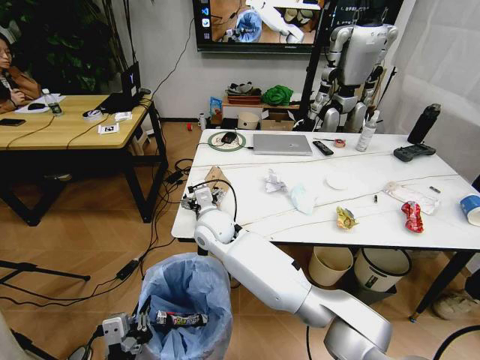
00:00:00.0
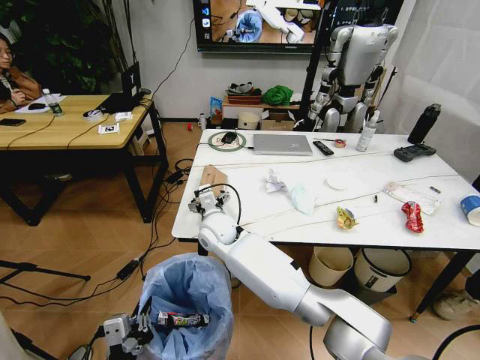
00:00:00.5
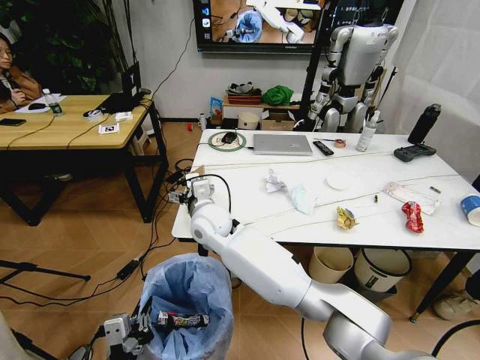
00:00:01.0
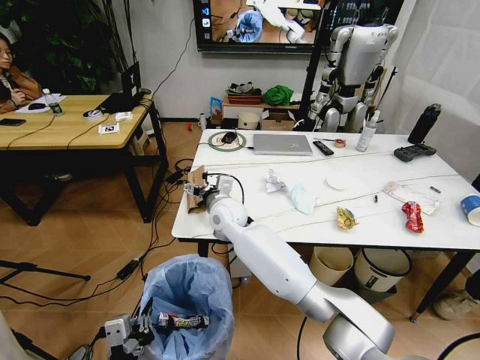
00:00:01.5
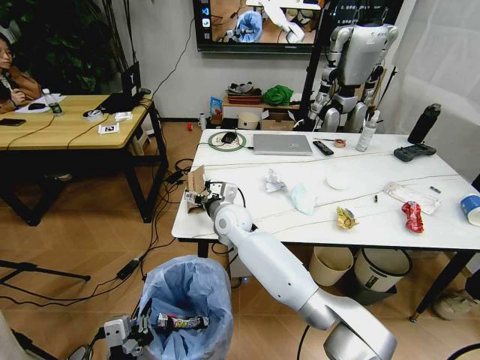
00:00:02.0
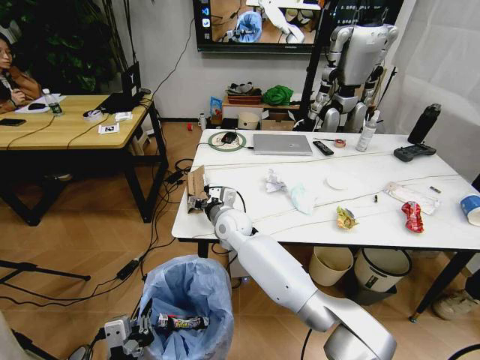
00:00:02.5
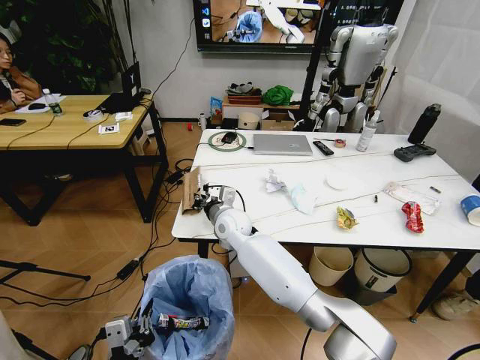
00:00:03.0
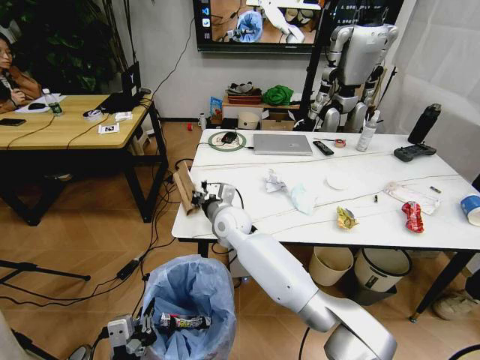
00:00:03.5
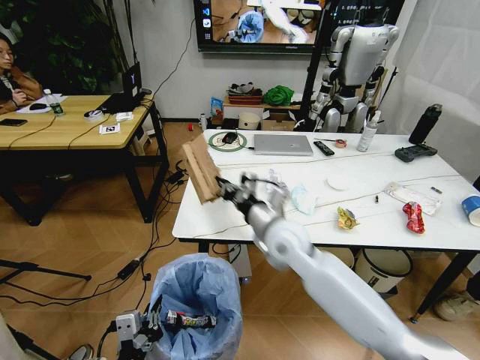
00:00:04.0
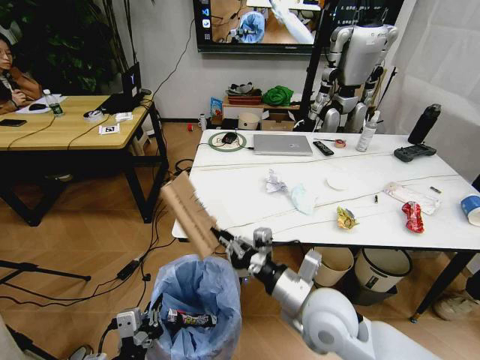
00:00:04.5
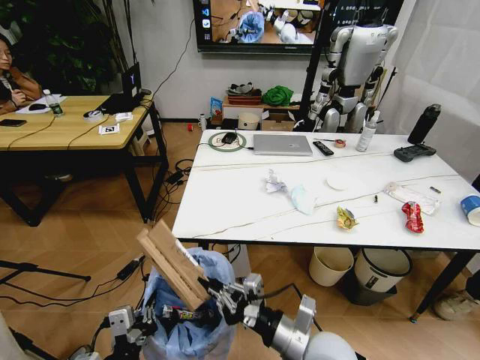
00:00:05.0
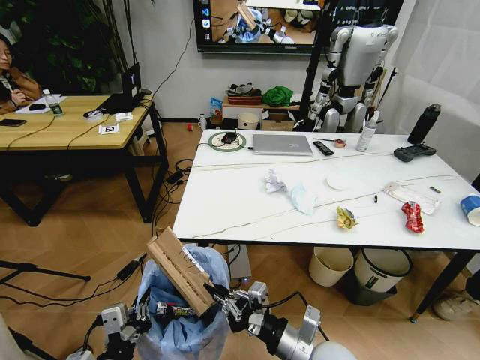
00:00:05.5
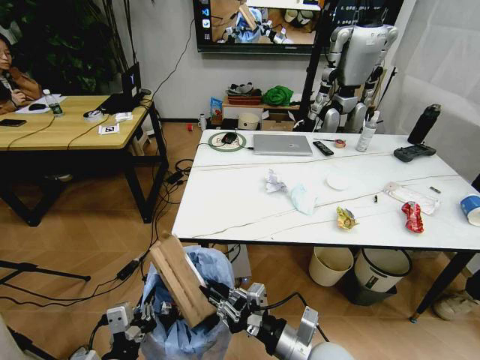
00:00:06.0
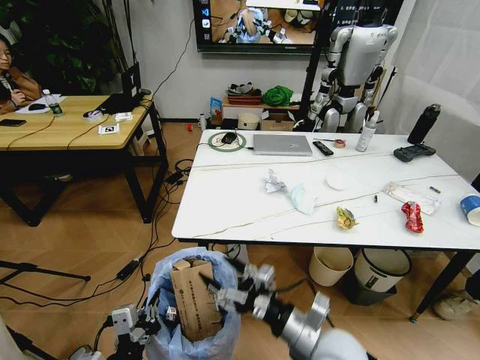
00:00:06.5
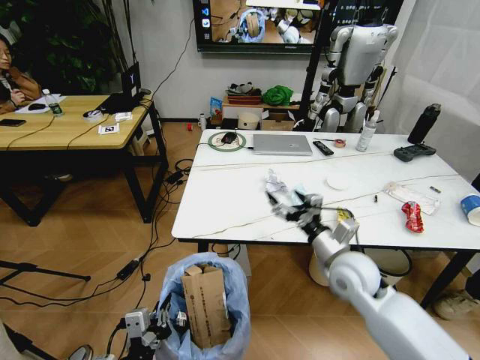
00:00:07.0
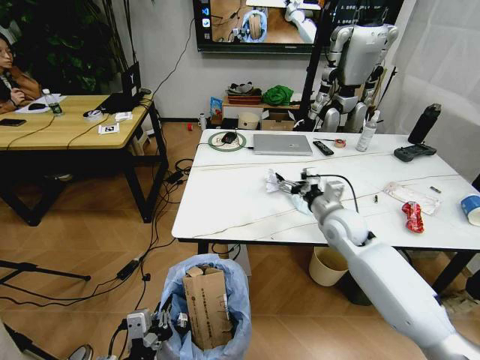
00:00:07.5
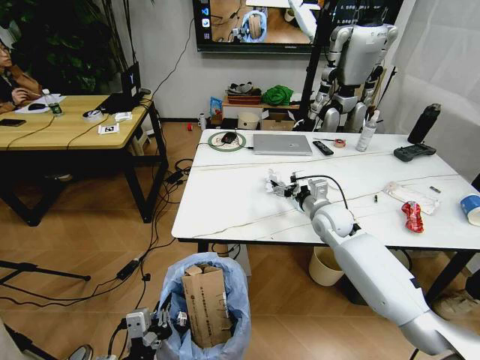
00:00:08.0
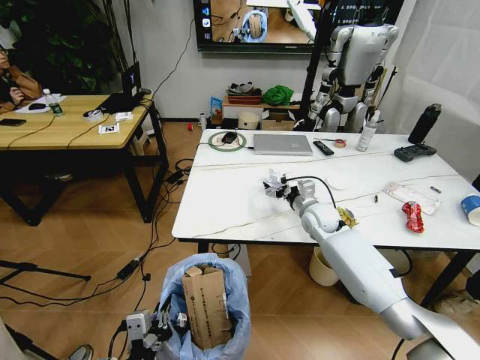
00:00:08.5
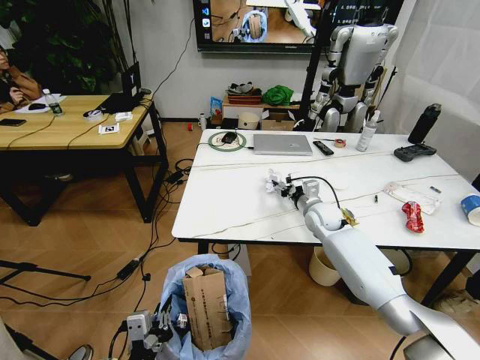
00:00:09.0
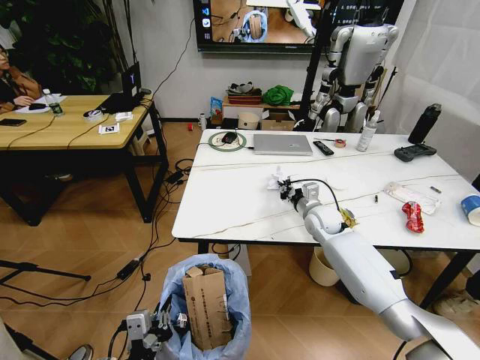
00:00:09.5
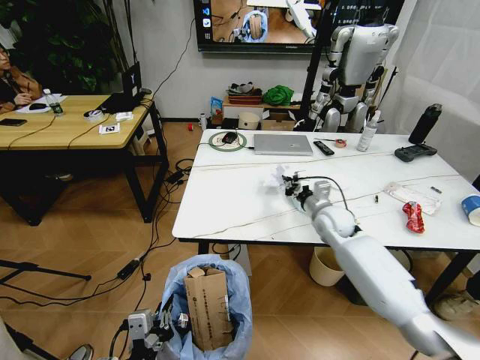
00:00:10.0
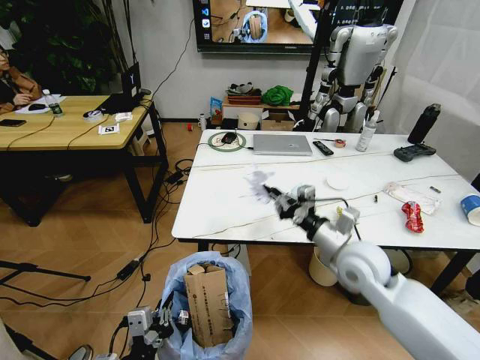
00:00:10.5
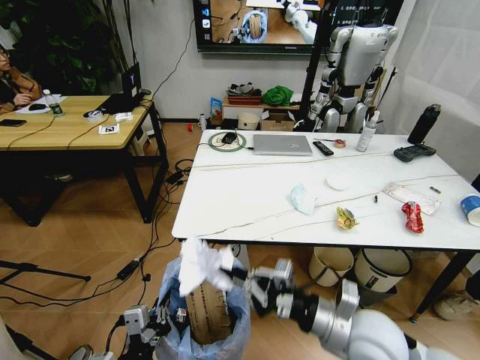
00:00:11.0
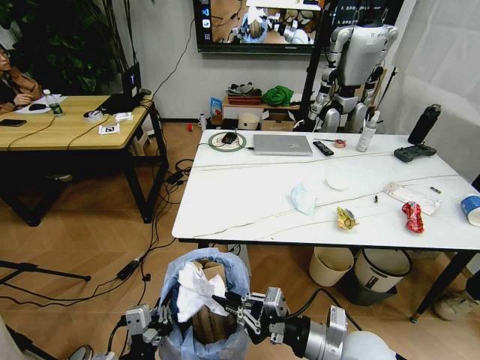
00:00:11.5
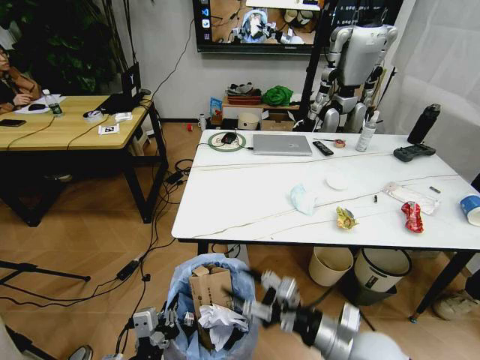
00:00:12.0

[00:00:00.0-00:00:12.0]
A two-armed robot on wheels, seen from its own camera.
Task of the whole recording: Pick up the trash bin and place the trash from the table into it.
00:00:00.0 to 00:00:02.0: The right gripper shifts by about 5 cm.
00:00:02.0 to 00:00:04.0: The right gripper shifts roughly 15 cm to the right, backward and upward, and closes up.
00:00:04.0 to 00:00:06.0: The right gripper heads backward and downward, covering about 25 cm.
00:00:06.0 to 00:00:08.0: The right gripper travels forward by about 30 cm, and opens its fingers.
00:00:08.0 to 00:00:10.0: The right gripper closes its fingers.
00:00:10.0 to 00:00:12.0: The right gripper travels backward by approximately 35 cm, and opens.

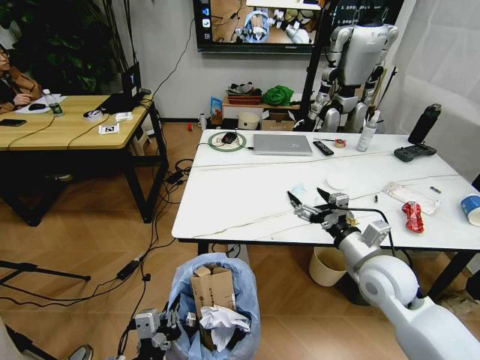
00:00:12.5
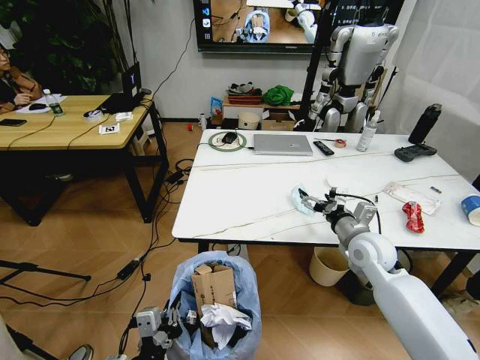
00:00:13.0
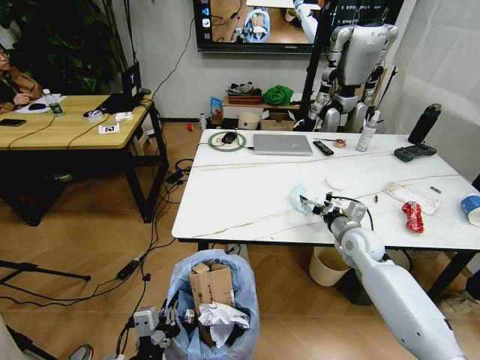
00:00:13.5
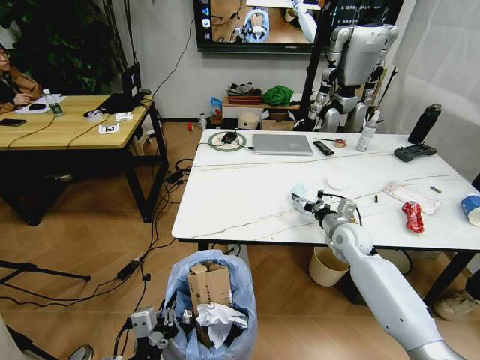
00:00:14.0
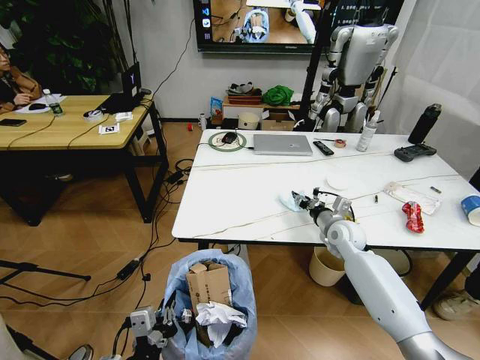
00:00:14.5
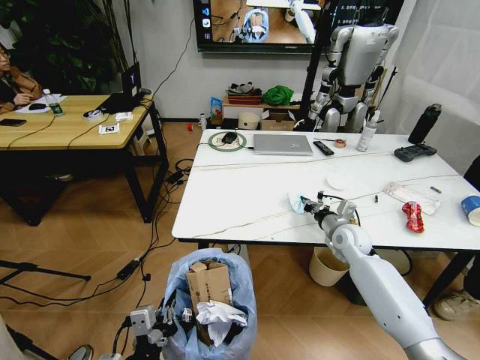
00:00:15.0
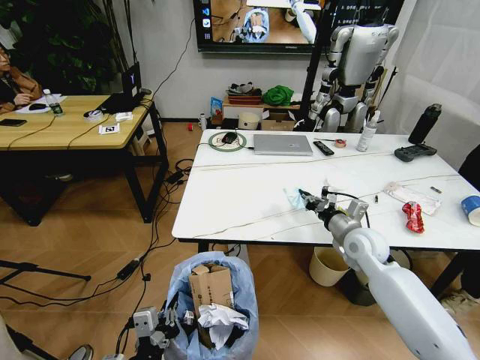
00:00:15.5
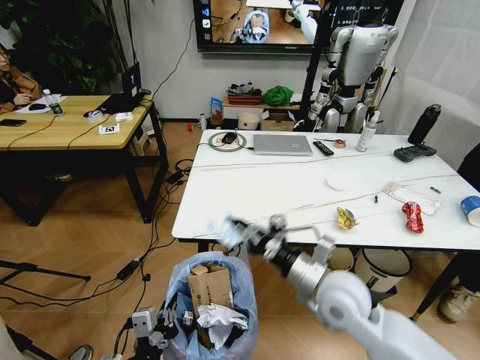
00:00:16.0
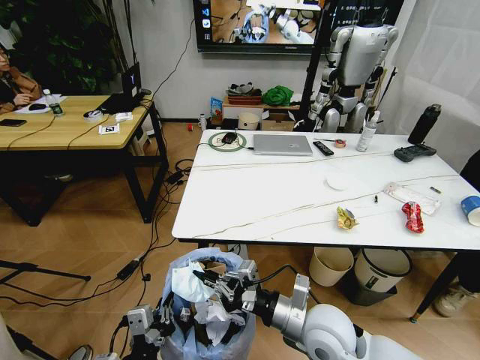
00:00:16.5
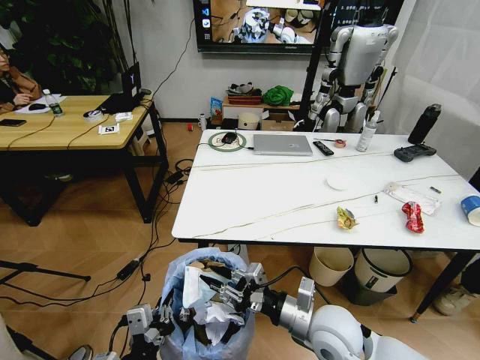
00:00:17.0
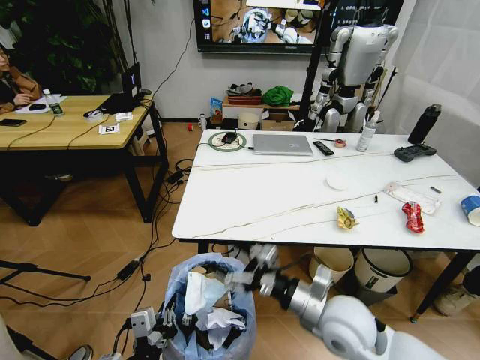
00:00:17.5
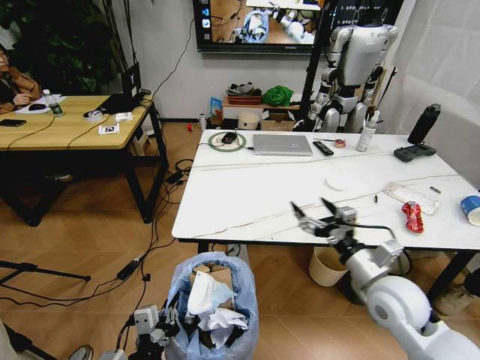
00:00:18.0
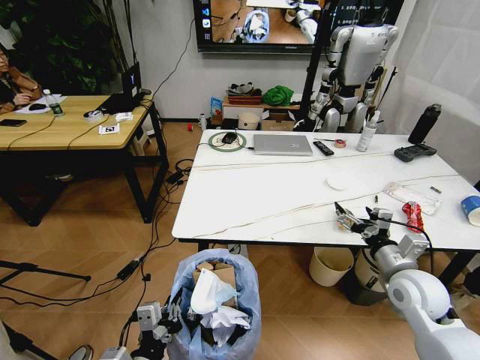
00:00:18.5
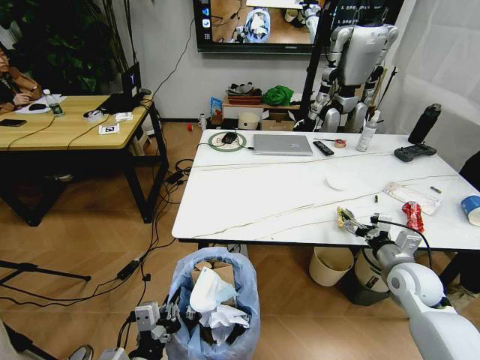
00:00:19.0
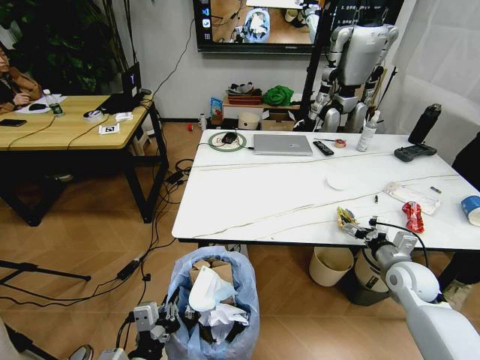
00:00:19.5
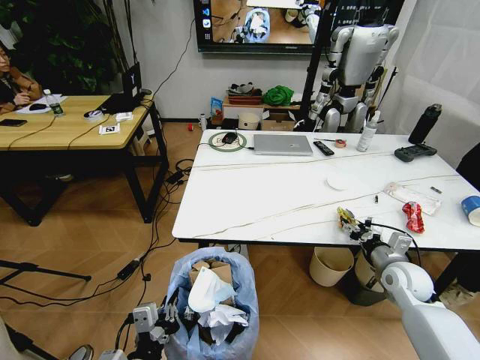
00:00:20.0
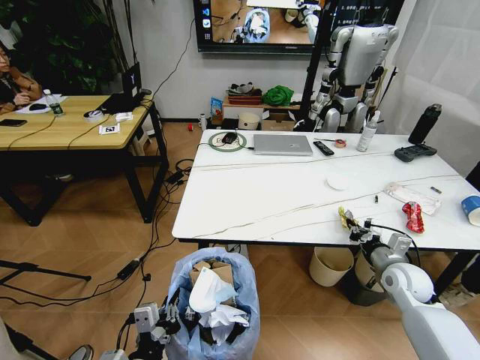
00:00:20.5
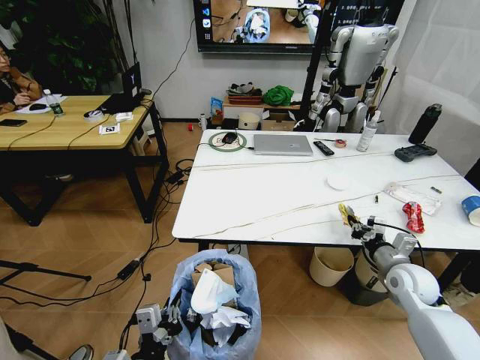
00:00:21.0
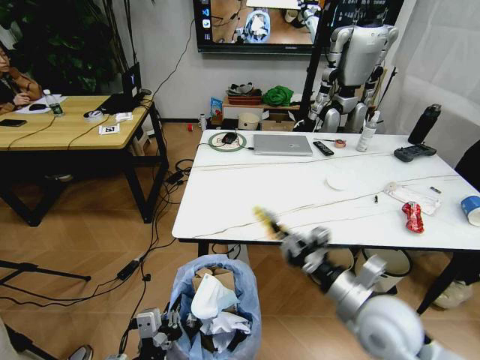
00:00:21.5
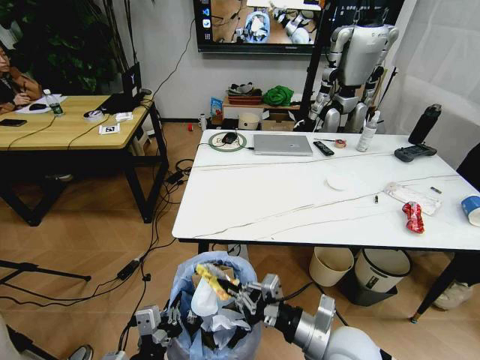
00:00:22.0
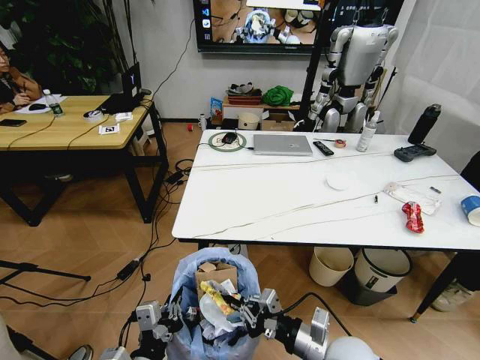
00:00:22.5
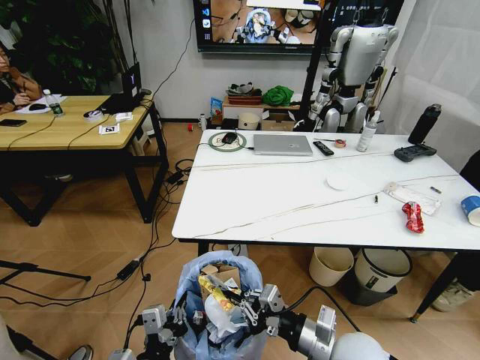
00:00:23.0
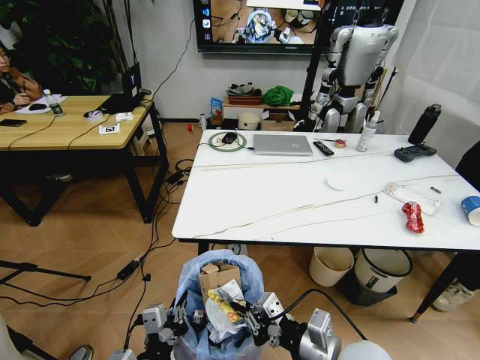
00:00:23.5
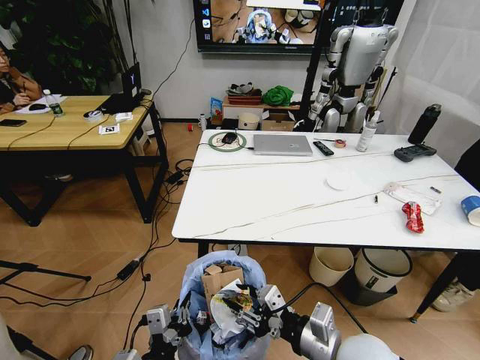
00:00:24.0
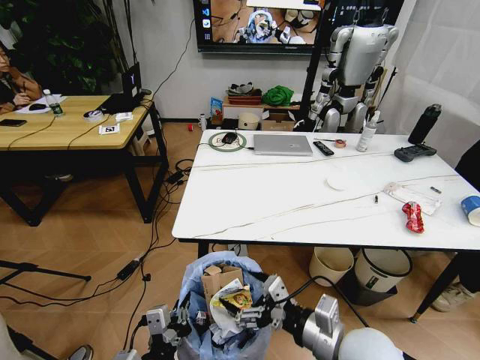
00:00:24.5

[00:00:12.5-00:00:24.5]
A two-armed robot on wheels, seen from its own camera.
Task of the whole recording: Pick up the trash bin and place the trash from the table into it.
00:00:12.5 to 00:00:14.5: The right gripper heads forward and downward, covering approximately 15 cm, and closes its fingers.
00:00:14.5 to 00:00:16.5: The right gripper is displaced backward and to the left by approximately 30 cm, and closes up.
00:00:16.5 to 00:00:18.5: The right gripper travels to the right by roughly 20 cm, and opens up.
00:00:18.5 to 00:00:20.5: The right gripper shifts about 10 cm downward and forward, and closes up.
00:00:20.5 to 00:00:22.5: The right gripper travels to the left and backward by roughly 25 cm.
00:00:22.5 to 00:00:24.5: The right gripper heads upward, covering approximately 10 cm, and opens.

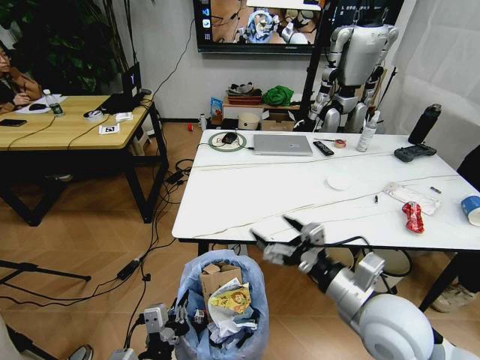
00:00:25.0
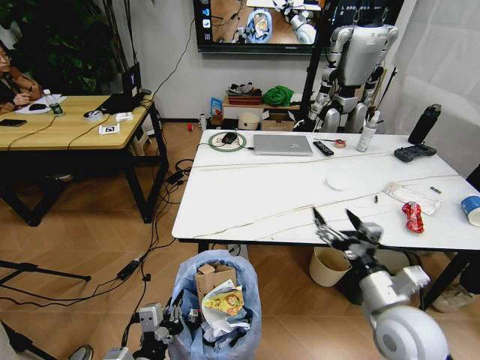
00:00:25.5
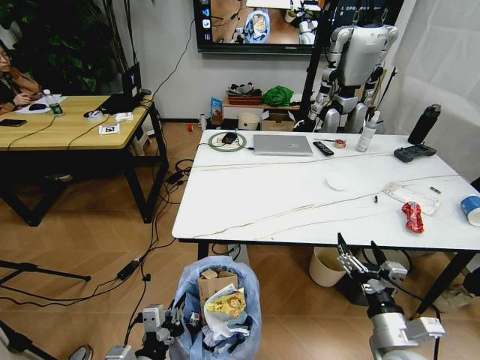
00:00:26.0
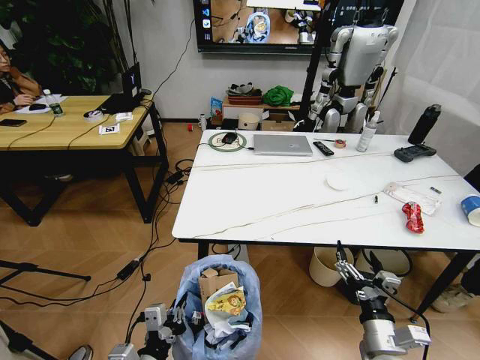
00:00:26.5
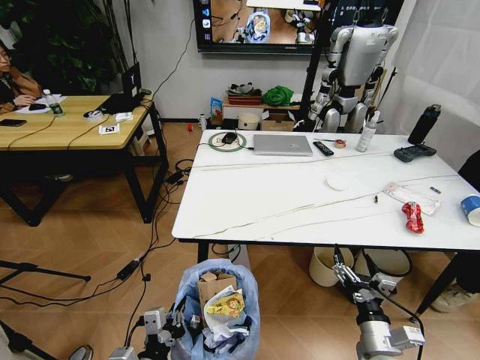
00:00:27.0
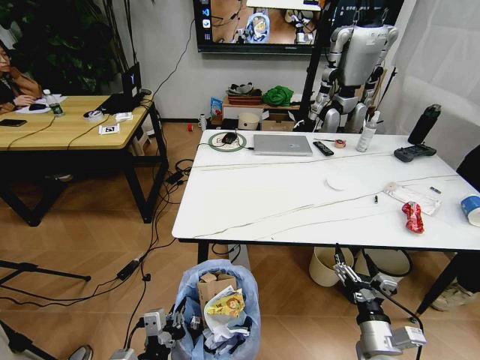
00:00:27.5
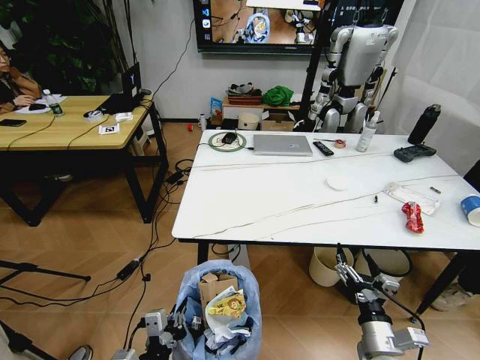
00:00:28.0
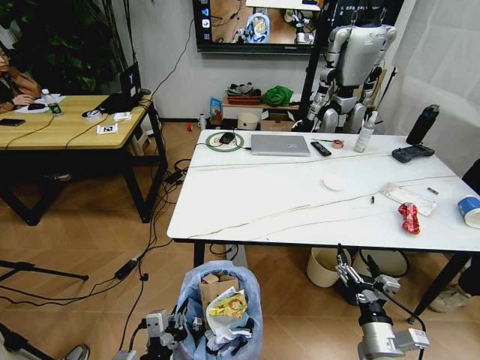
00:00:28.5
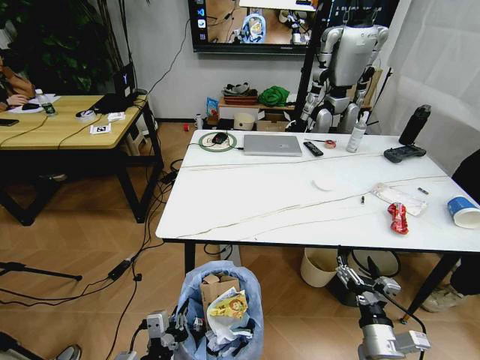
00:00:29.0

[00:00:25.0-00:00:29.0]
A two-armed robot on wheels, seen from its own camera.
Task of the whole recording: Pick up the trash bin and place the trash from the table into it.
00:00:25.0 to 00:00:27.0: The right gripper travels downward by roughly 15 cm.
